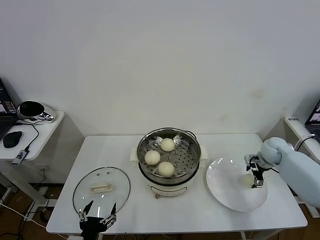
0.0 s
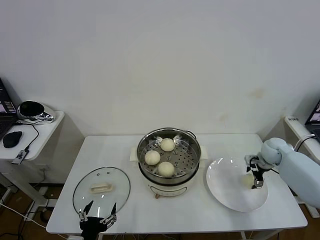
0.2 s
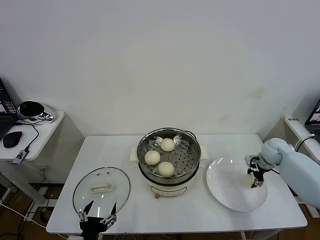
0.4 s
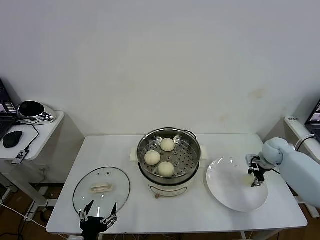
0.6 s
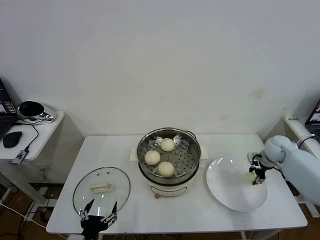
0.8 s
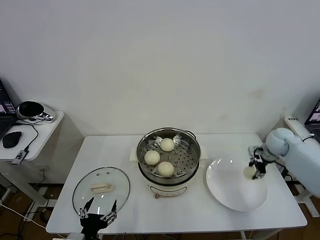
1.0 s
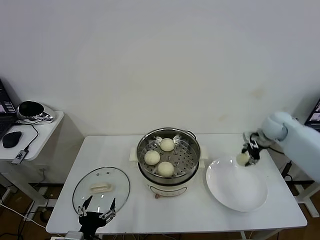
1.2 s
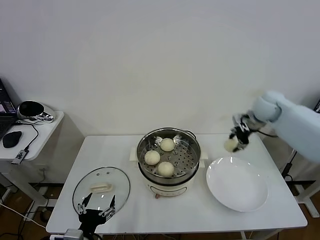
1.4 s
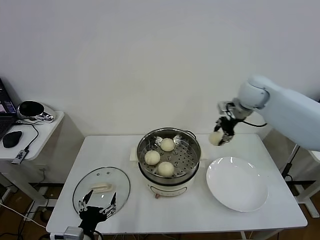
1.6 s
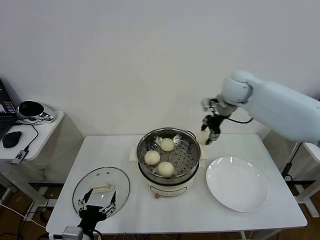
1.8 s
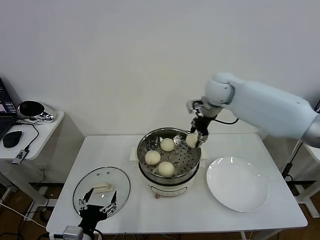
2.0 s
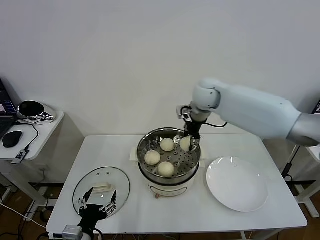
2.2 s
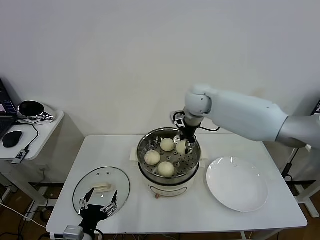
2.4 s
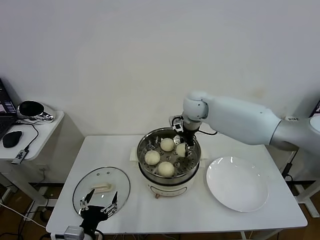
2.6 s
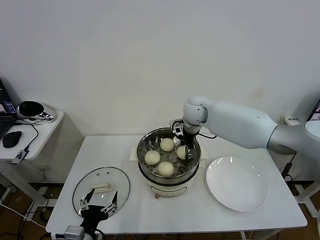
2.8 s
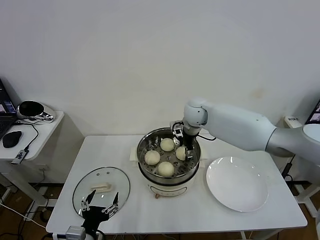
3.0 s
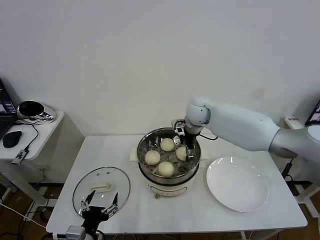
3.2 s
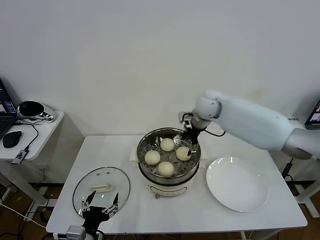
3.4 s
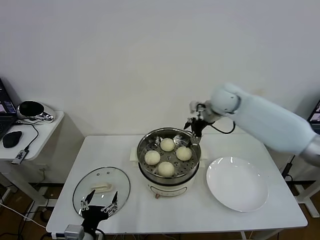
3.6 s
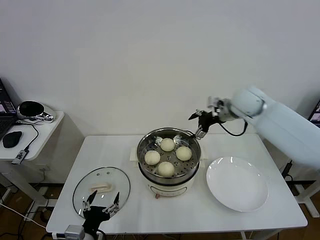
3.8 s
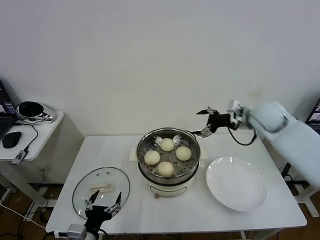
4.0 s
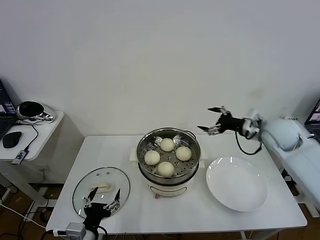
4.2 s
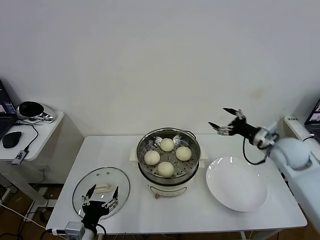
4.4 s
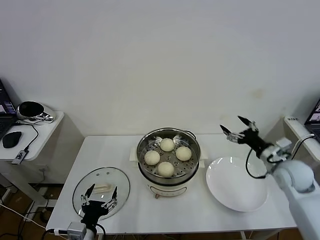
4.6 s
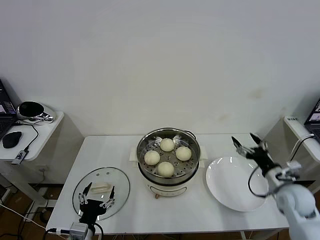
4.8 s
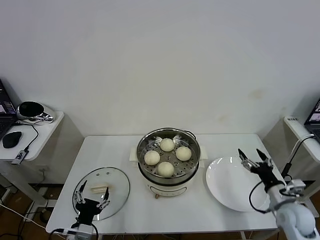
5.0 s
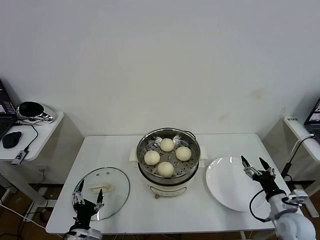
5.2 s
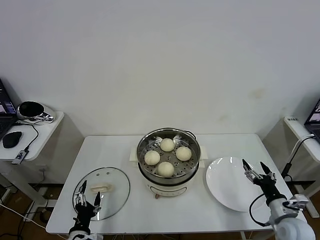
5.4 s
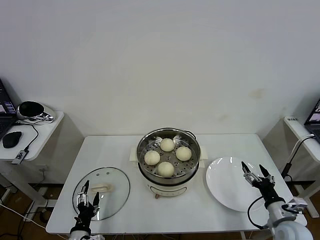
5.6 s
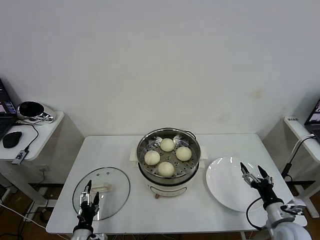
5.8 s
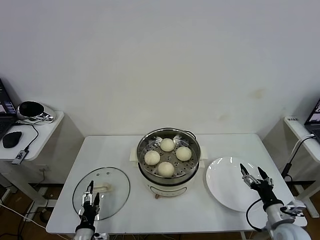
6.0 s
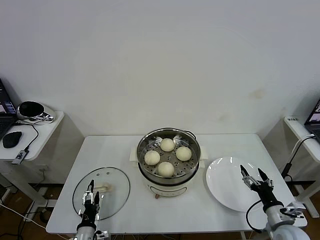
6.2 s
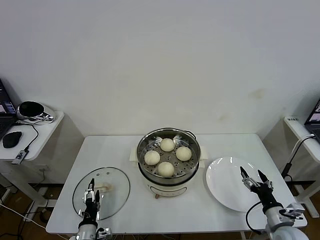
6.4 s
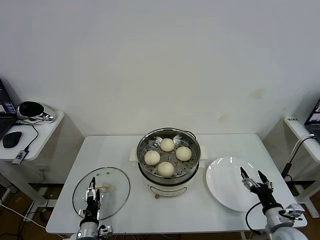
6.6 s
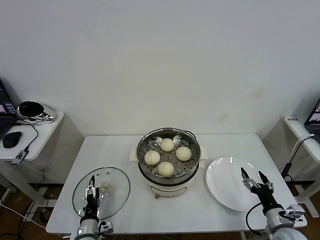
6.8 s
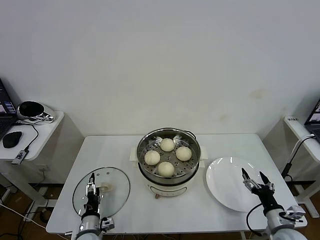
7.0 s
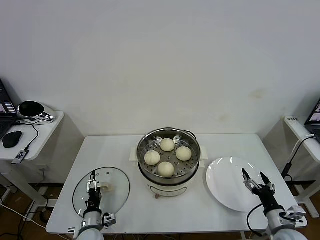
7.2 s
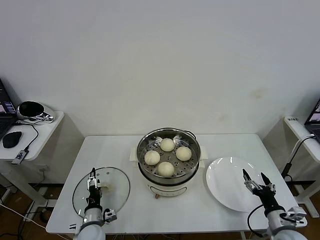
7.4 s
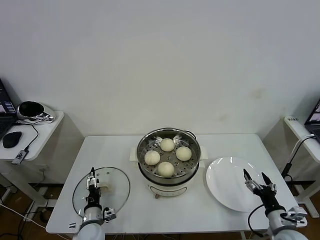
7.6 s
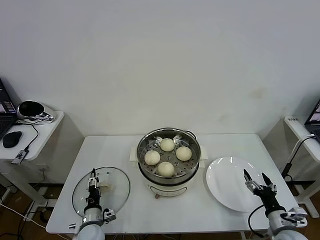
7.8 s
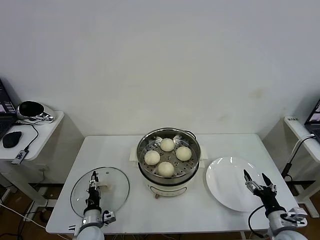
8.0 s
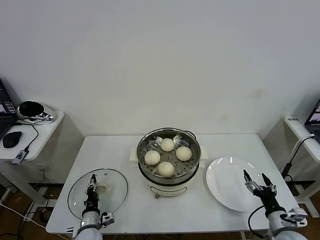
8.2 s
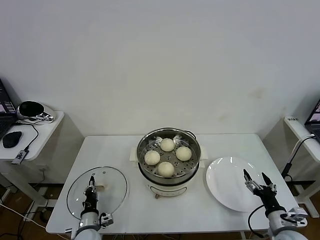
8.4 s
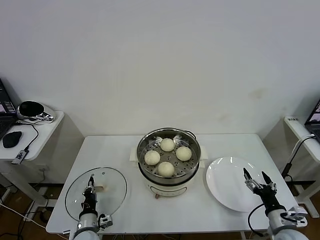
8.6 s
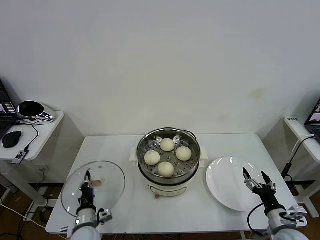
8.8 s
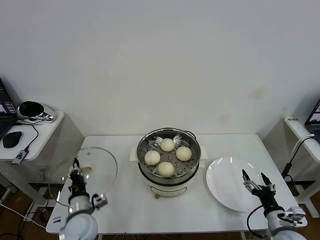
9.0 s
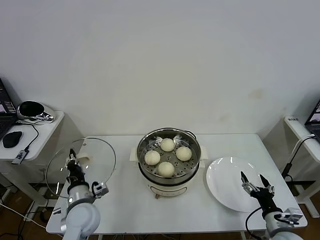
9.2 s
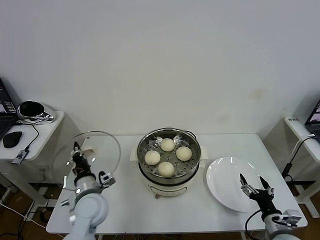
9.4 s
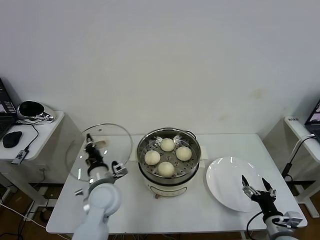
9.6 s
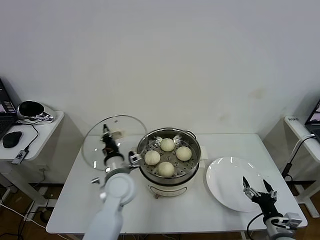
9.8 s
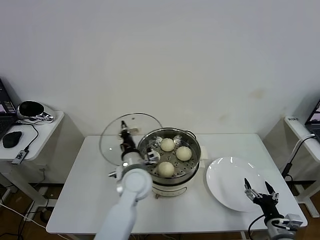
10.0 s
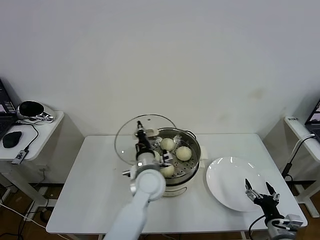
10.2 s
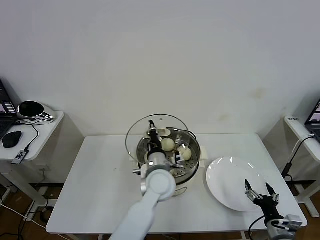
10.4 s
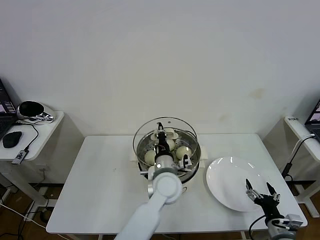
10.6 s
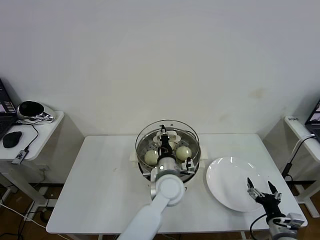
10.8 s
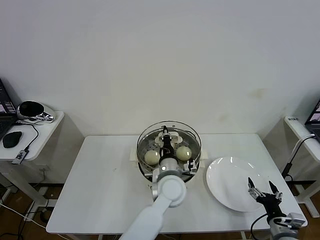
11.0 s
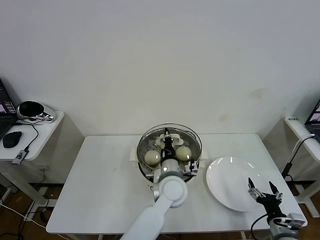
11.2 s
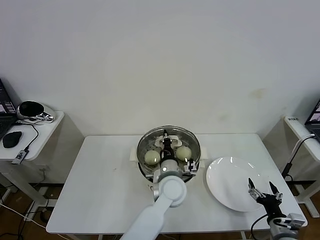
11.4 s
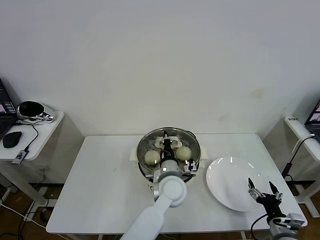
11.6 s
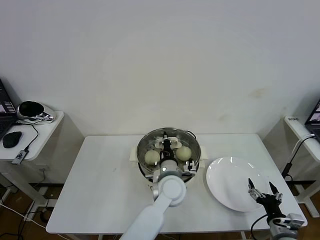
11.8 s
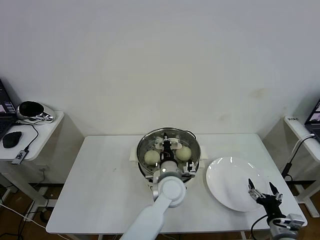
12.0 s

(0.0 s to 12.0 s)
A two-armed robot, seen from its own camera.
Task of the whole recording: take steamed baozi put them in steamer then cover it.
Step, 0.8 s - 3.2 s: Place the baozi on the steamer with right gripper.
Step, 3.4 s - 8.4 s: Grasp the pot lid with left gripper.
0.0 s - 1.6 s: The right gripper goes about 25 cm upward and to the left, and closes its fingers.
1.6 s - 3.0 s: The right gripper is displaced to the left and downward by some 20 cm, and opens its fingers.
3.0 s - 4.4 s: The right gripper is displaced to the right and backward by about 30 cm.
4.4 s - 6.0 s: The left gripper goes approximately 15 cm downward. The right gripper moves backward and downward, about 25 cm.
6.0 s - 7.6 s: The left gripper is displaced forward by some 10 cm.
7.6 s - 9.0 s: The left gripper moves upward, roughly 10 cm, and closes.
9.0 s - 10.4 s: The left gripper goes some 30 cm to the right, upward and forward.
10.4 s - 12.0 s: The left gripper ends up about 5 cm from where it was.

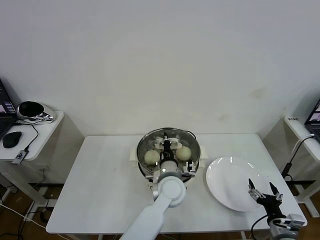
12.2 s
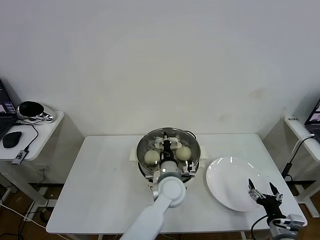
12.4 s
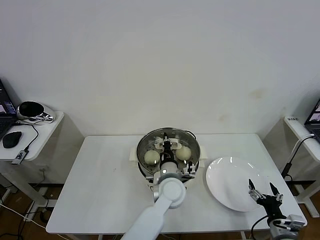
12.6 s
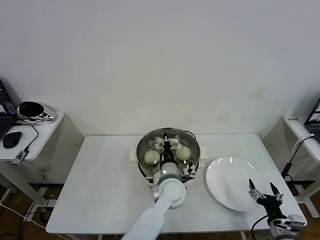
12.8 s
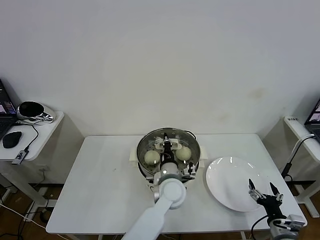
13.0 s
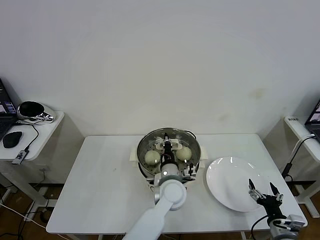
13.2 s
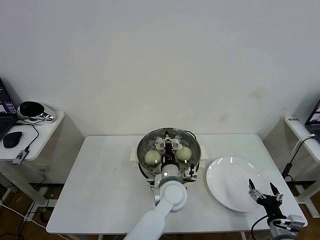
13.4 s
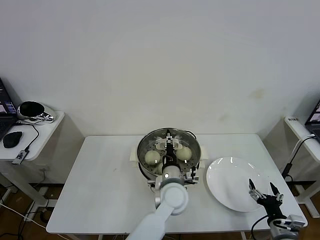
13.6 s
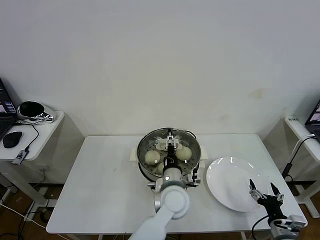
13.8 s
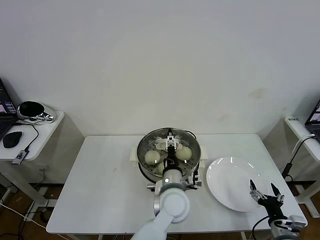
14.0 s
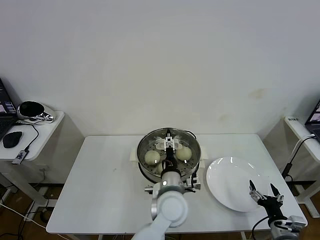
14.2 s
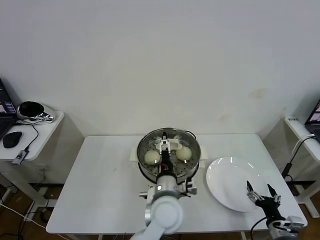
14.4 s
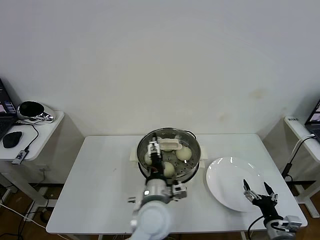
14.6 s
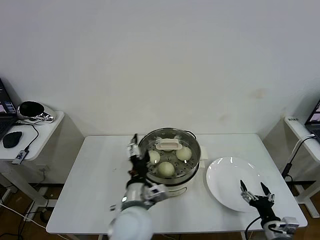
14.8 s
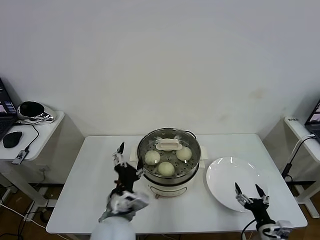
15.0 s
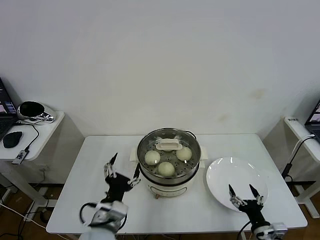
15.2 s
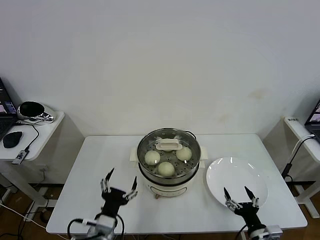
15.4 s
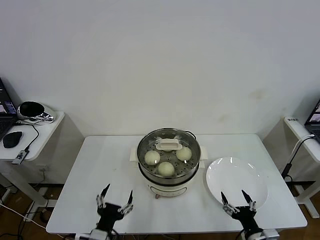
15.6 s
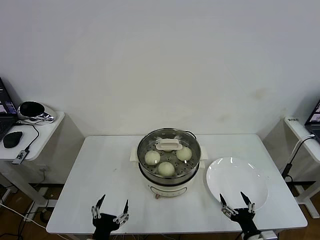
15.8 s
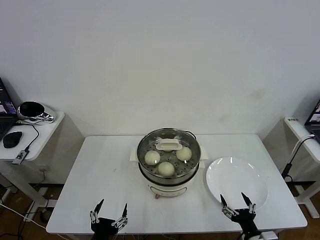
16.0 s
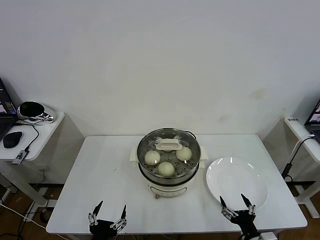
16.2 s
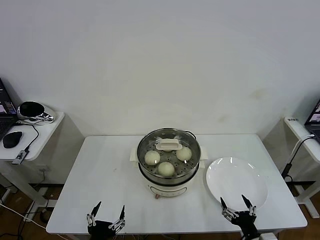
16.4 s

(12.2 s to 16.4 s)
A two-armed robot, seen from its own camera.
Task of the whole recording: take steamed baozi put them in steamer then cover it.
12.2 s - 13.6 s: The left gripper opens its fingers.
13.6 s - 15.0 s: The left gripper heads to the left, backward and upward, covering some 20 cm, and opens its fingers.
15.0 s - 16.4 s: The left gripper travels backward, to the left and downward by about 20 cm. The right gripper shifts some 5 cm to the left.

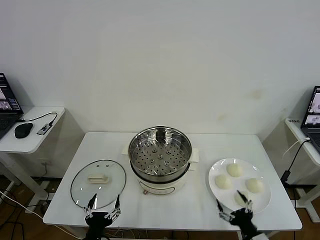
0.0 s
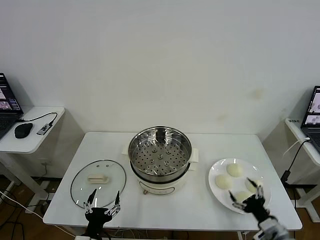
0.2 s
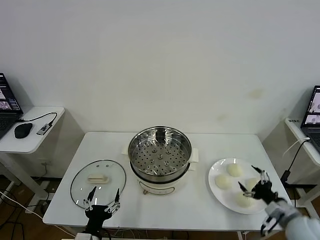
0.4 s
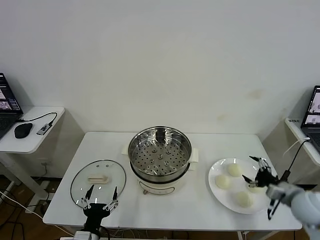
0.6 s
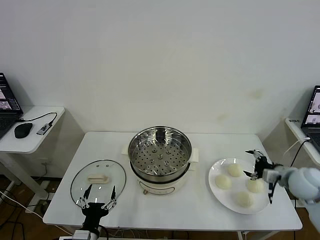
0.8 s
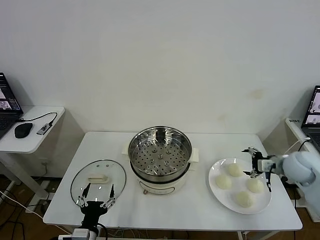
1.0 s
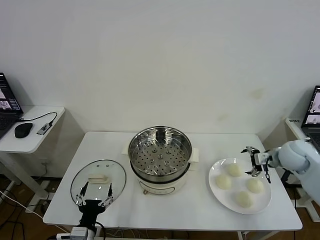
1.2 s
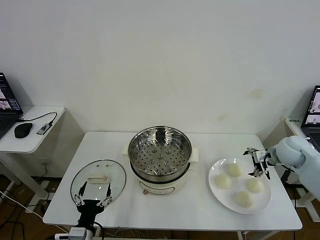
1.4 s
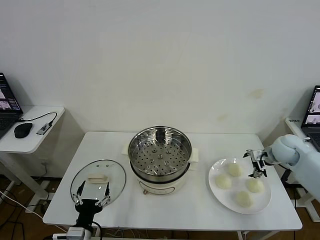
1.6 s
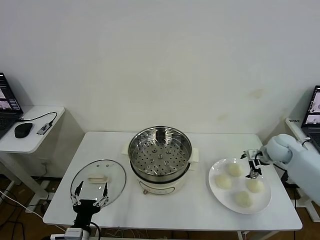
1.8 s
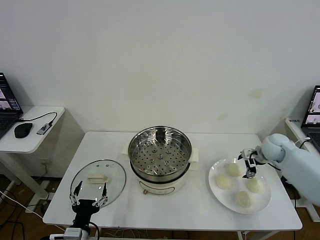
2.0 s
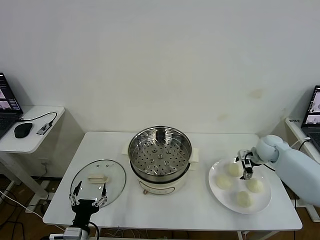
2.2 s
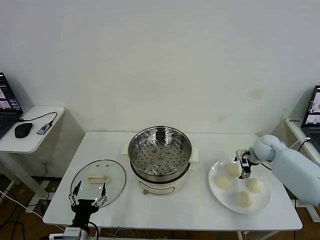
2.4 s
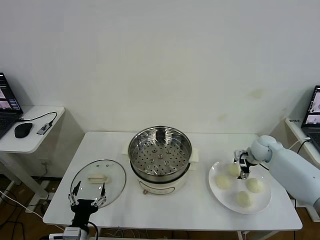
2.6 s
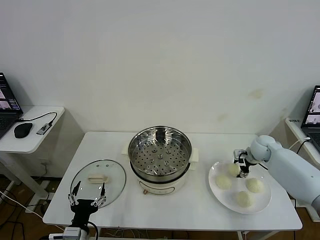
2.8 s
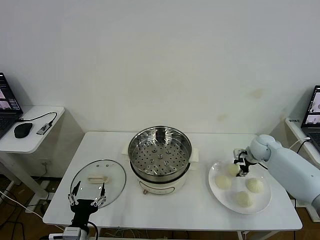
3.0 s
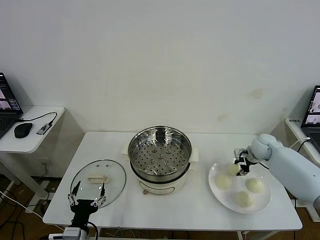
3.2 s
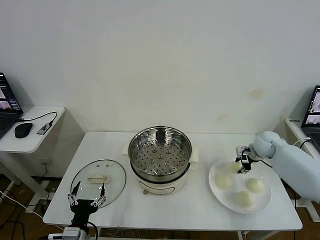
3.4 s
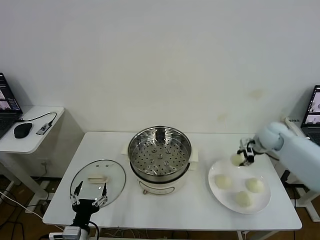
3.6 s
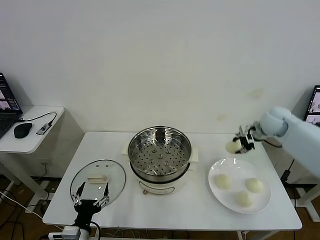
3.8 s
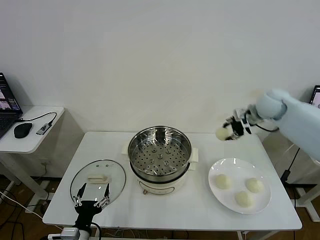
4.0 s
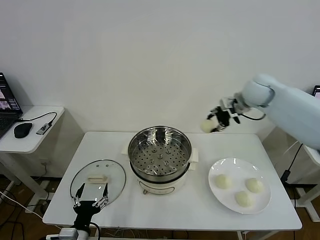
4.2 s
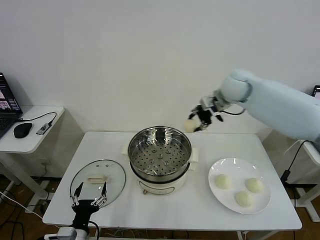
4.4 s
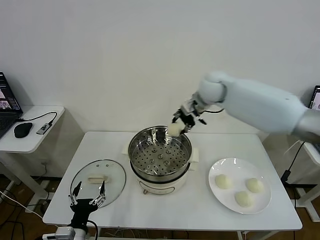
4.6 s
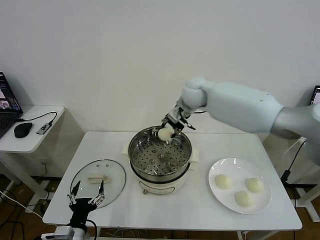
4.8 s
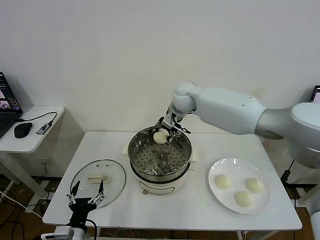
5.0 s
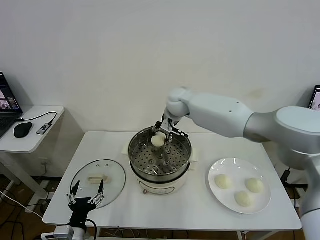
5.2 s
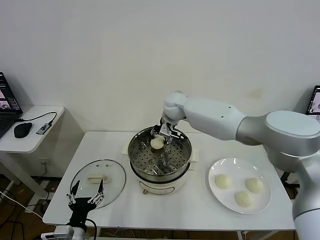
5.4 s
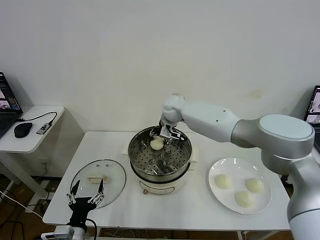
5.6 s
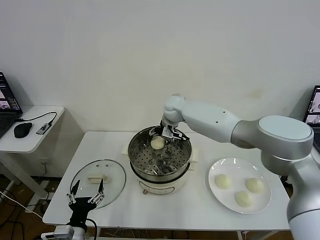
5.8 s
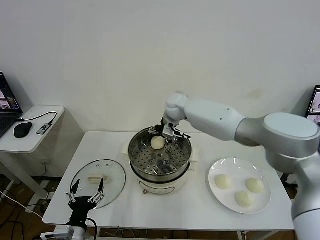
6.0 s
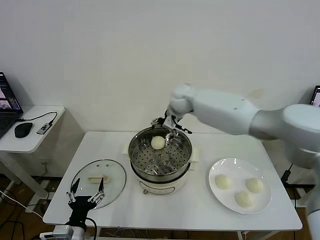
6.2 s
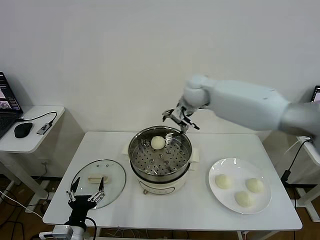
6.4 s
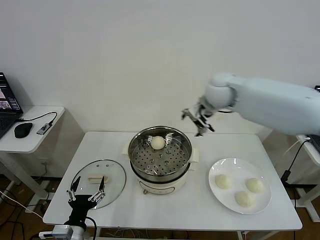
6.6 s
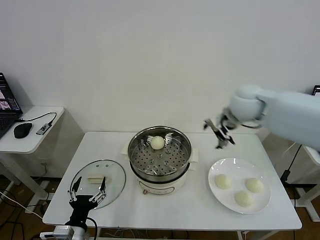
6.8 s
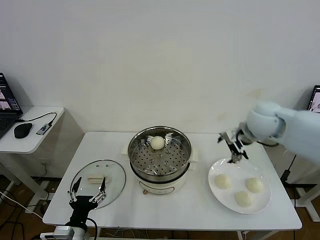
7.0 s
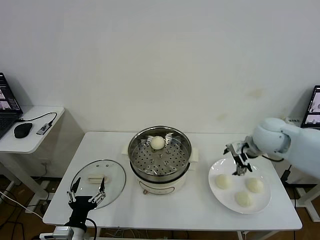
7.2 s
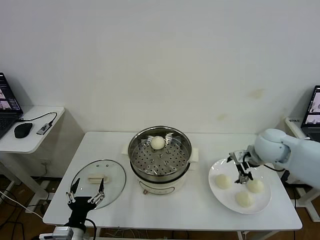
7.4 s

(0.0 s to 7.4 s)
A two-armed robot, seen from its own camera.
Task of the whole recording: take steamed baozi put them in steamer then cover it.
Step, 0.0 s - 3.0 s: Grasp the baozi in the plate with right gripper.
Step, 3.2 s - 5.8 s: Place the baozi on the steamer with right gripper.
1.4 s - 3.0 s: The right gripper moves downward and forward, some 10 cm, and closes.
3.0 s - 4.4 s: The right gripper shifts some 30 cm upward and to the left.
4.4 s - 6.0 s: The right gripper shifts roughly 15 cm to the left and downward, and opens its fingers.
6.0 s - 7.4 s: The right gripper is displaced to the right and backward by some 30 cm.
